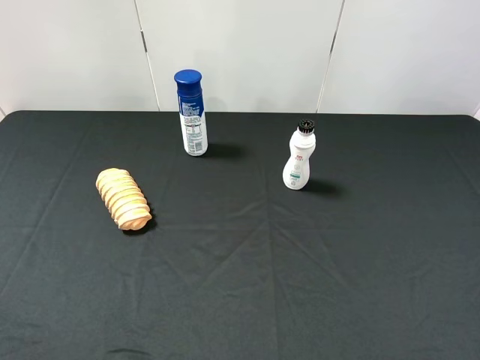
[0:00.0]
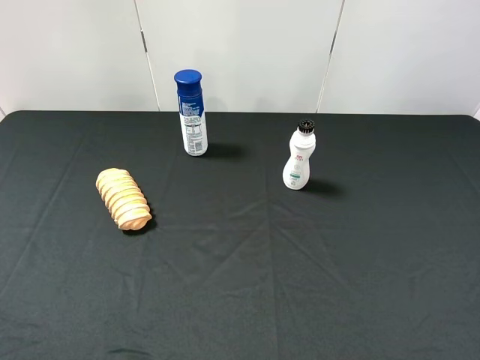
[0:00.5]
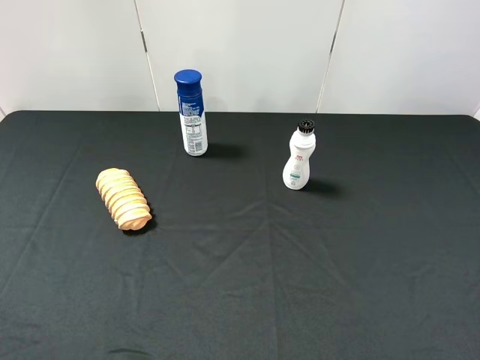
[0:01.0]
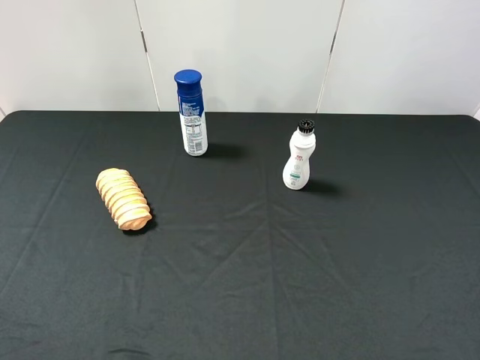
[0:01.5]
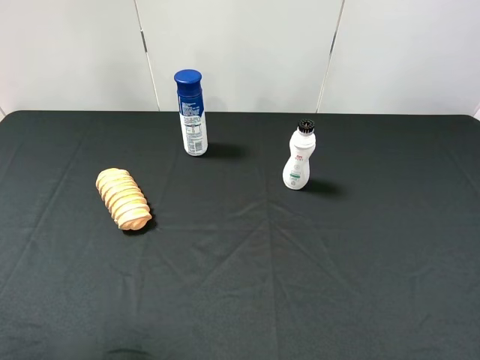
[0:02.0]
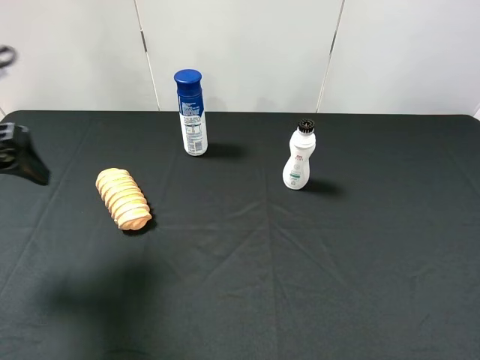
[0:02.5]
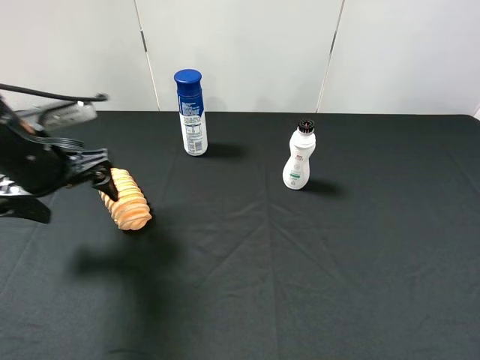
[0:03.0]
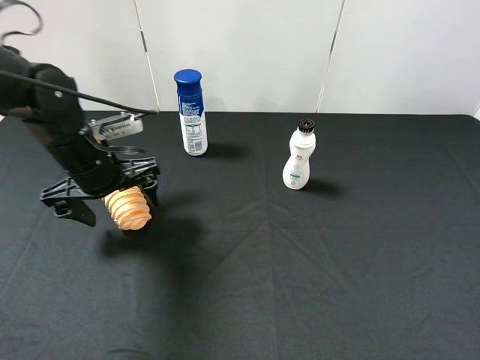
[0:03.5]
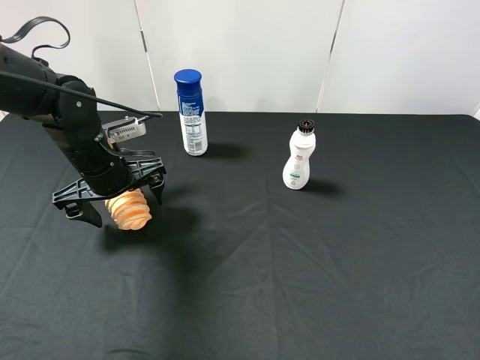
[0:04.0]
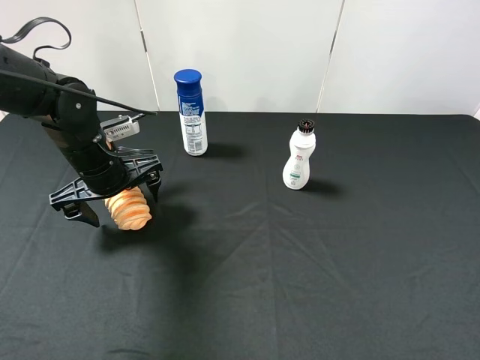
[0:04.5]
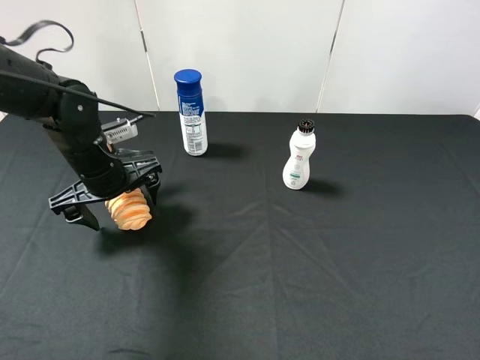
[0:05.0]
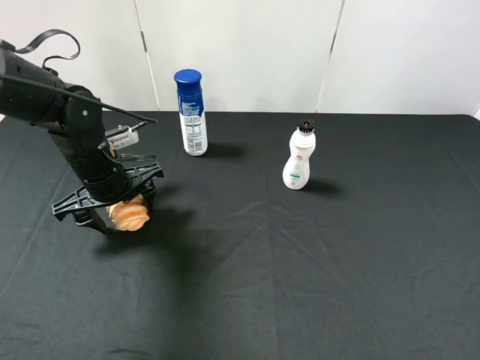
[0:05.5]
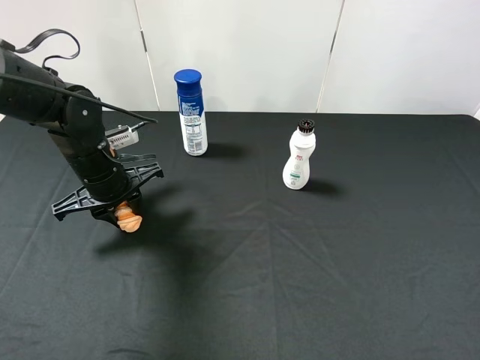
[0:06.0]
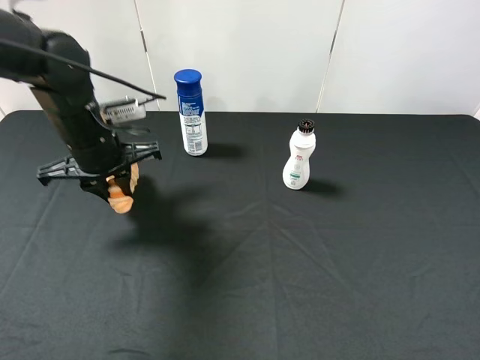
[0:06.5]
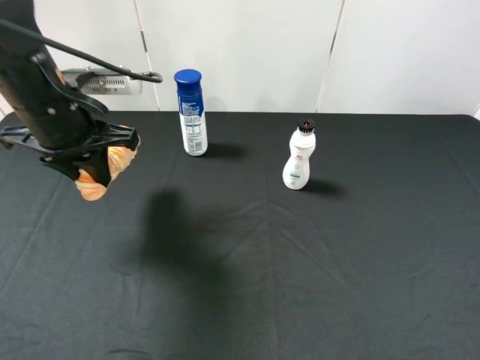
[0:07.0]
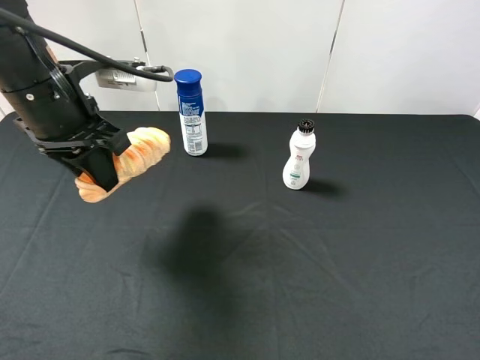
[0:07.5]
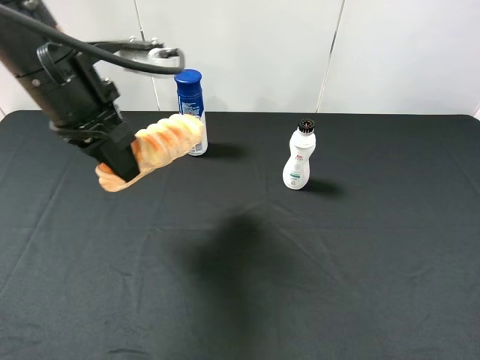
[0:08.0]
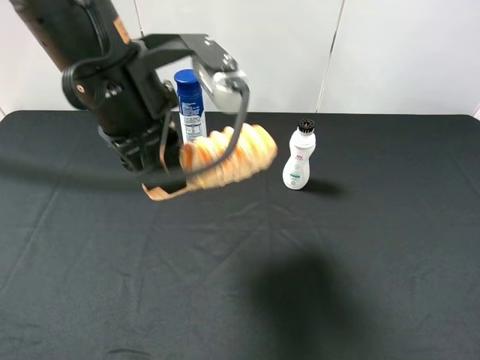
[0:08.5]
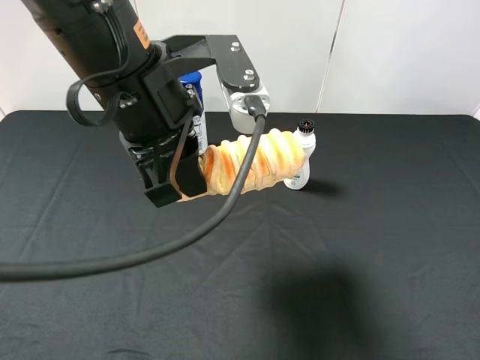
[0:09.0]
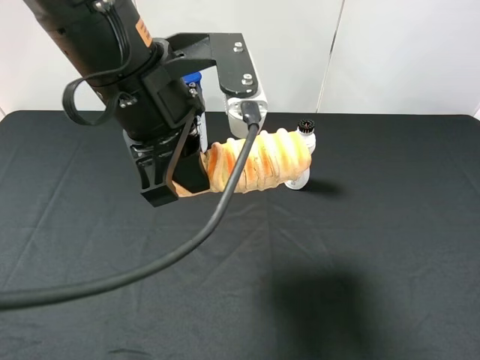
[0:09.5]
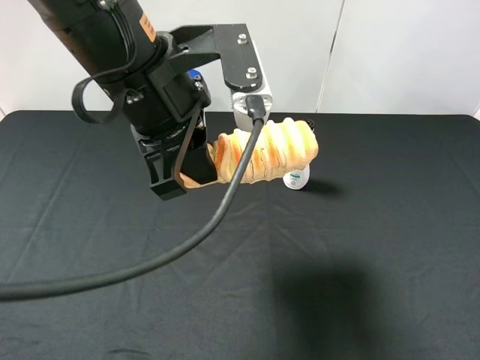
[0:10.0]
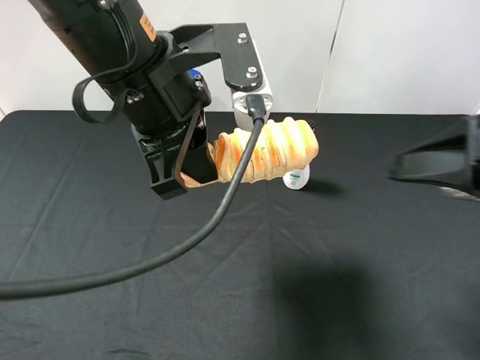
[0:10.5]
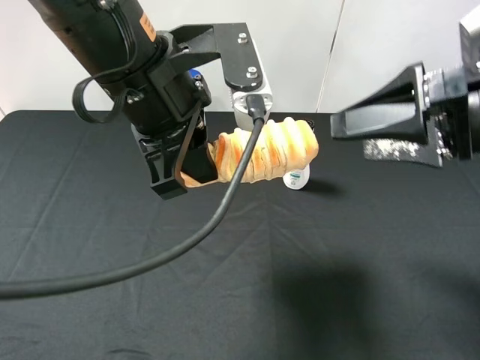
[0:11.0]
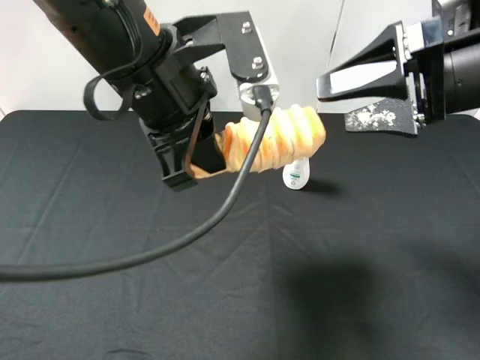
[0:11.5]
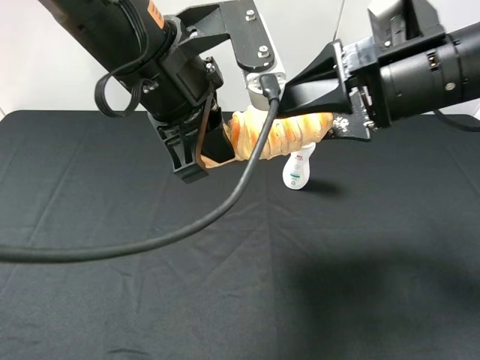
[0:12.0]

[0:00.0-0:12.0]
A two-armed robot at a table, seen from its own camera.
Task of the whole recording: use the left gripper to pick up the item and transfer it from the left gripper to the right gripper.
0:02.0 to 0:04.0: The left gripper shifts about 30 cm forward, downward and to the right.
0:04.0 to 0:06.0: The left gripper closes up.
0:06.0 to 0:08.0: The left gripper travels upward by about 15 cm.
0:08.0 to 0:10.0: The left gripper is displaced to the right by about 10 cm.
0:10.0 to 0:12.0: The right gripper shifts approximately 25 cm forward and to the left.

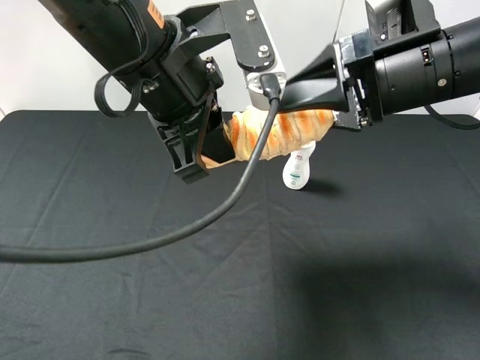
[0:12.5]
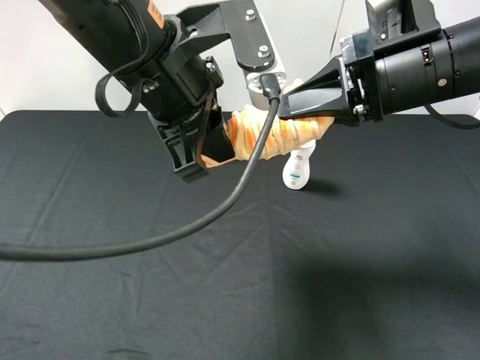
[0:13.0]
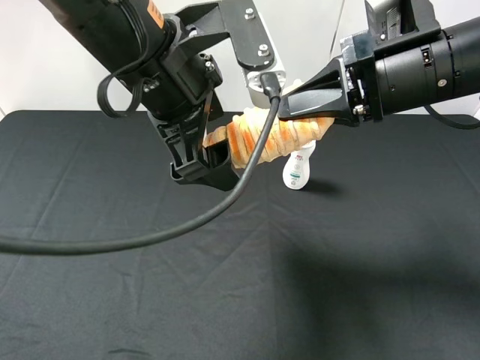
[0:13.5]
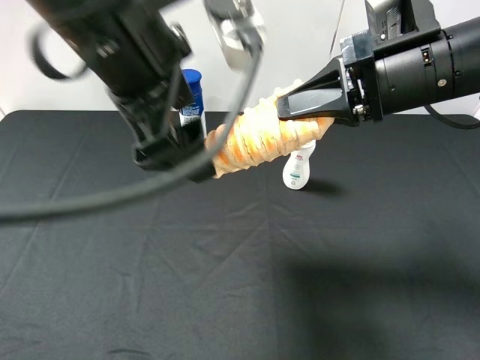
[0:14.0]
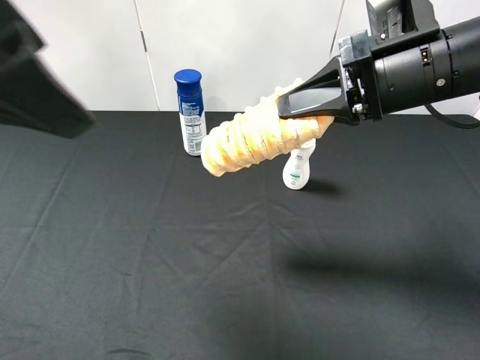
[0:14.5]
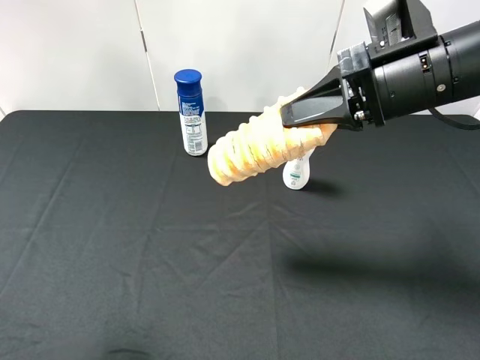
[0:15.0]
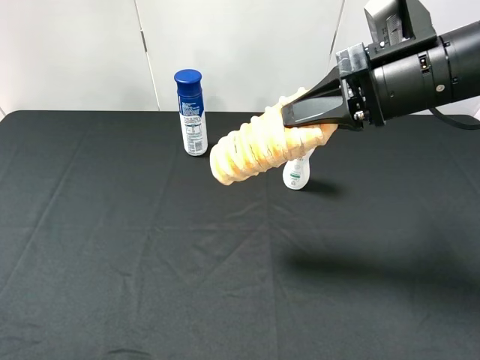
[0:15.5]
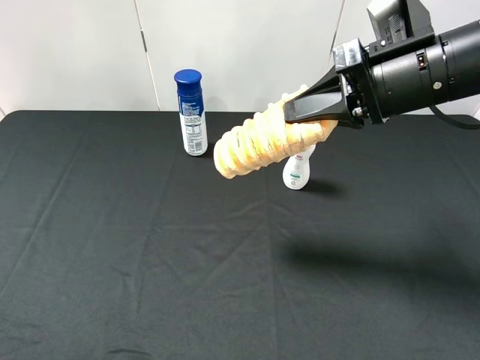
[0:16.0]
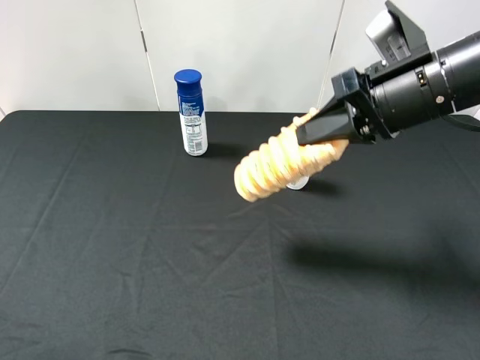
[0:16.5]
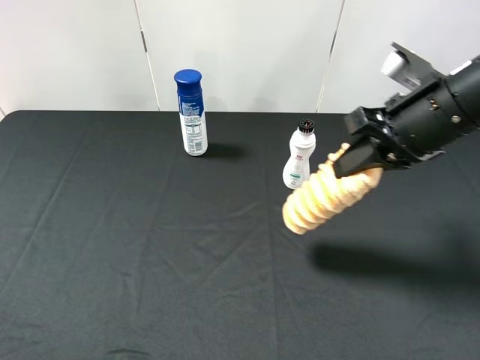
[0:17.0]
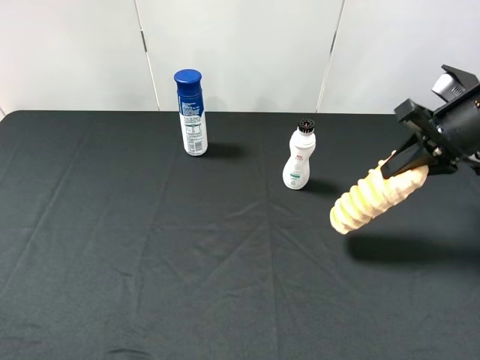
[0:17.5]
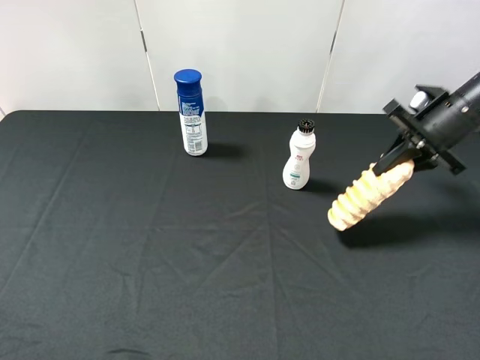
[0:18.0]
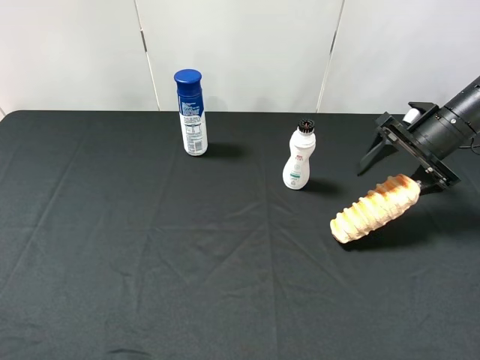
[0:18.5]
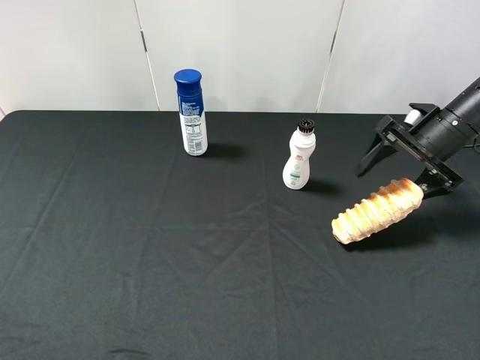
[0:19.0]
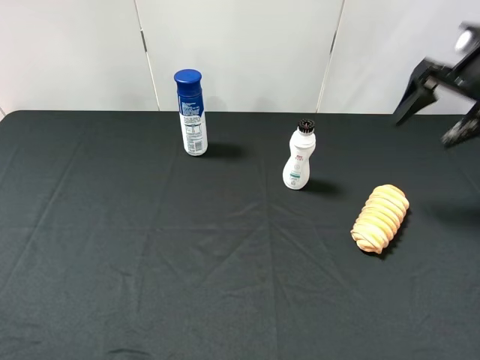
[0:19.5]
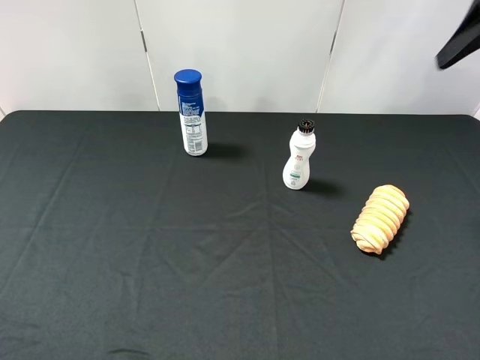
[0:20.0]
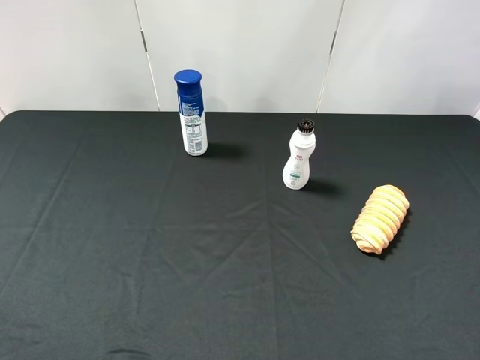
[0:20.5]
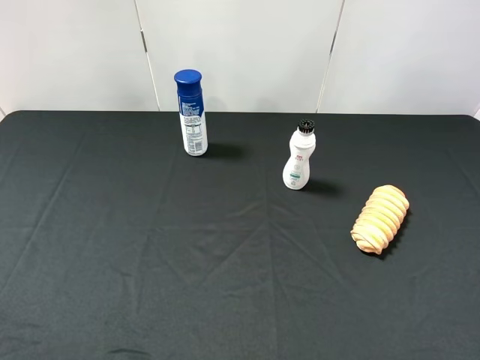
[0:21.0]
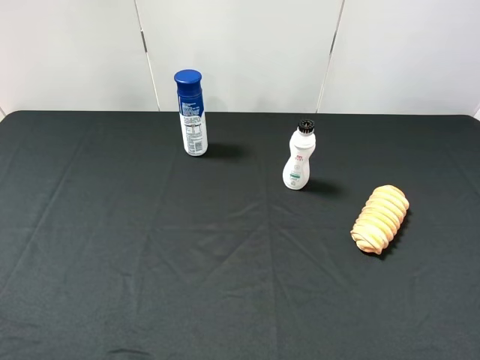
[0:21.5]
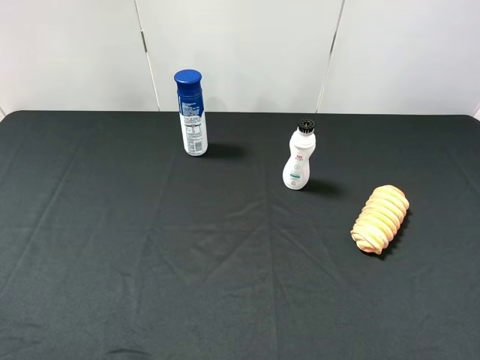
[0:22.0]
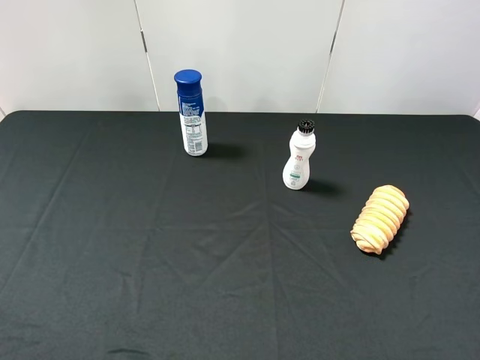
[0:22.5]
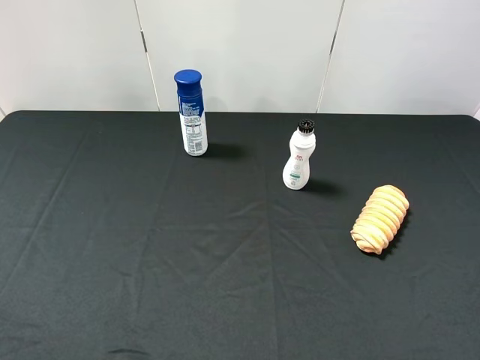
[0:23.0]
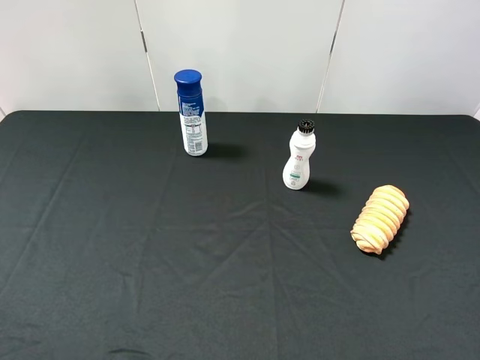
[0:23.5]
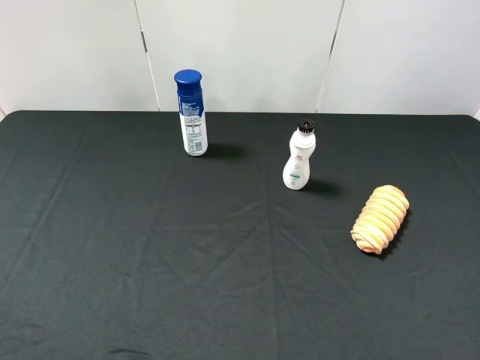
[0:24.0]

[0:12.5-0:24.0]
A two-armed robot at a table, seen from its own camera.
Task of the whole recording: use the left gripper to pick up the item and transfer it from the left gripper to the right gripper.
0:12.5 to 0:14.5: The left gripper moves to the left, upward and backward, approximately 15 cm, and opens up, while the right gripper closes up.
0:14.5 to 0:16.5: The left gripper shifts roughly 25 cm to the left, backward and downward.
0:16.5 to 0:18.5: The right gripper is displaced to the right, downward and forward by approximately 20 cm, and opens.
0:18.5 to 0:20.0: The right gripper heads upward, covering some 20 cm.
0:20.0 to 0:22.0: The right gripper is displaced backward by approximately 30 cm.

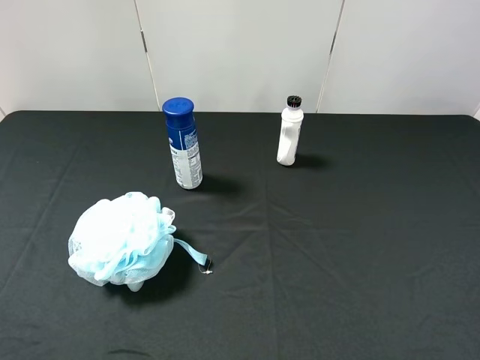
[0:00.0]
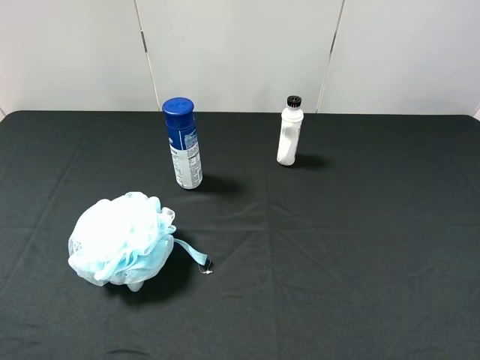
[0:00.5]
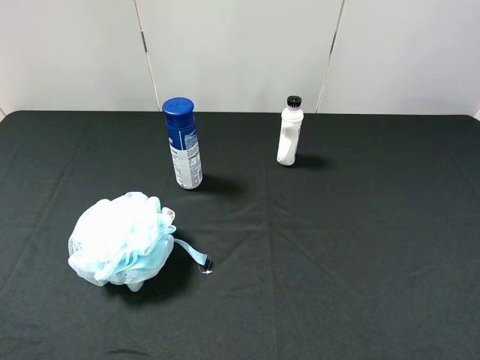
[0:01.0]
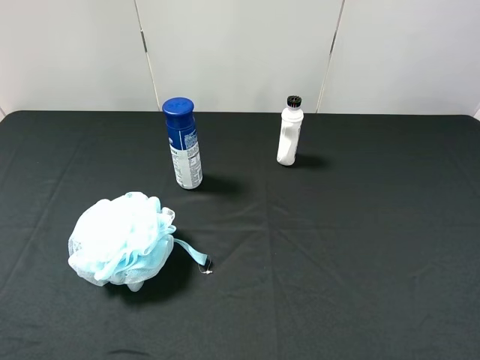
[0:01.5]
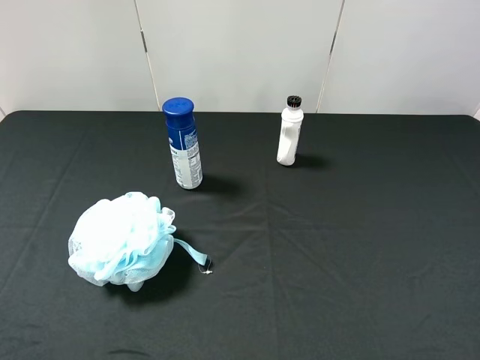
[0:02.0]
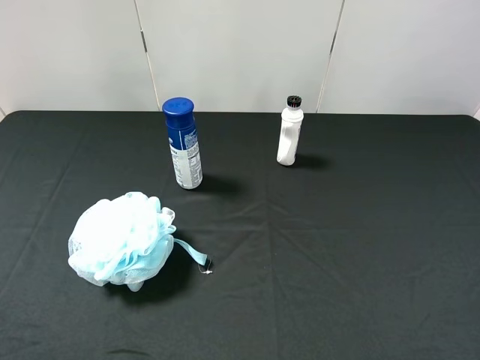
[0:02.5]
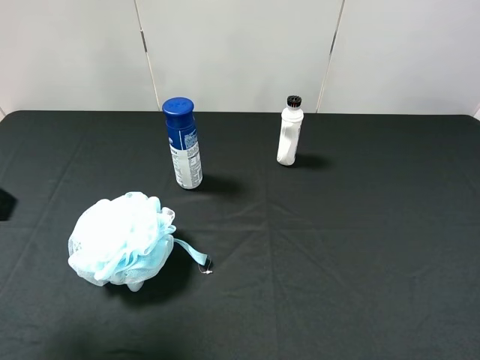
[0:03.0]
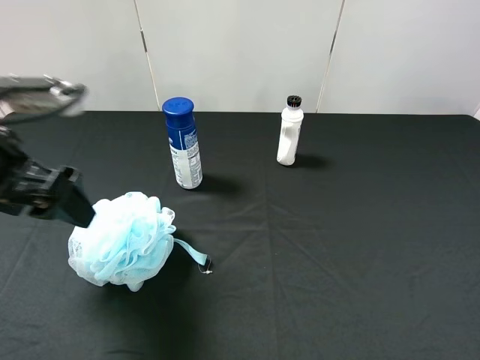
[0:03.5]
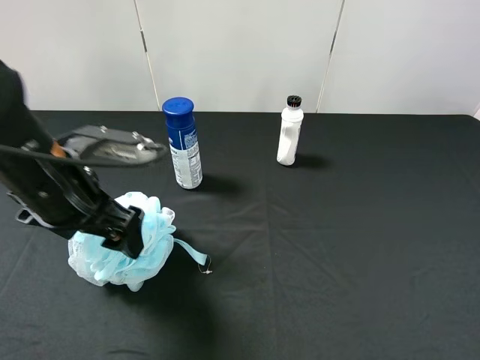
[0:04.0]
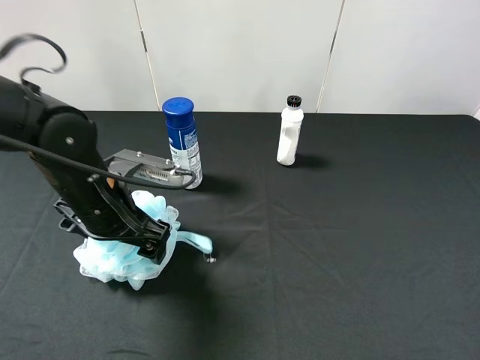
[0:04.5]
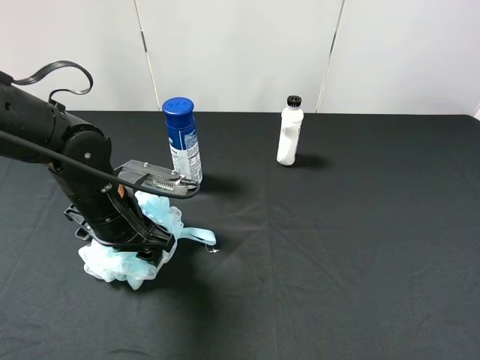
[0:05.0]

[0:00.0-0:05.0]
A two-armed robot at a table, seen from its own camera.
Task of the whole recording: use the left gripper to pick up the item and transfer it from the left gripper to the right gripper.
0:02.5 to 0:05.0: The left gripper shifts roughly 30 cm downward, forward and to the right, and closes its fingers.
